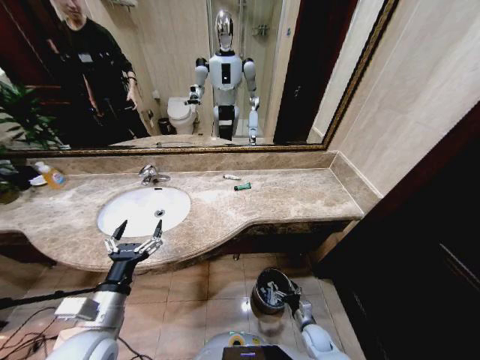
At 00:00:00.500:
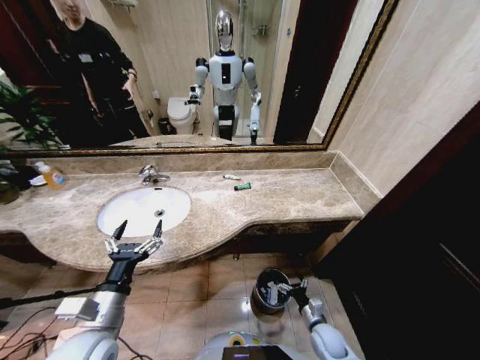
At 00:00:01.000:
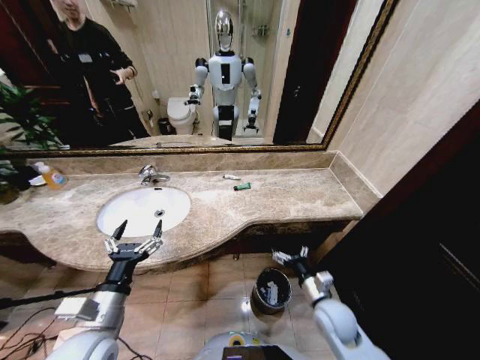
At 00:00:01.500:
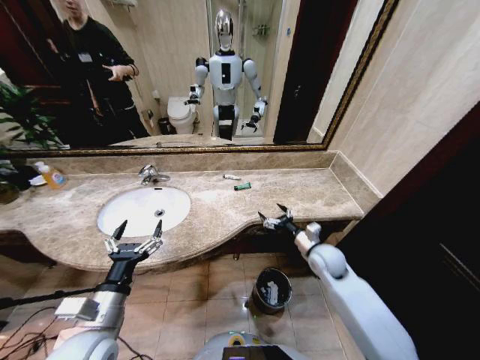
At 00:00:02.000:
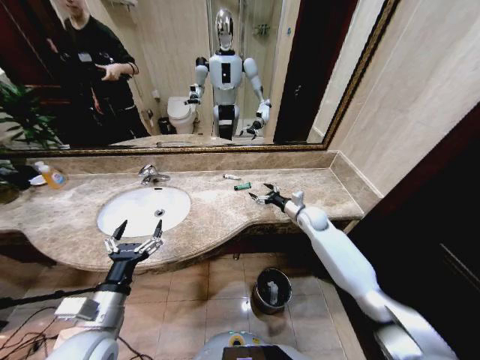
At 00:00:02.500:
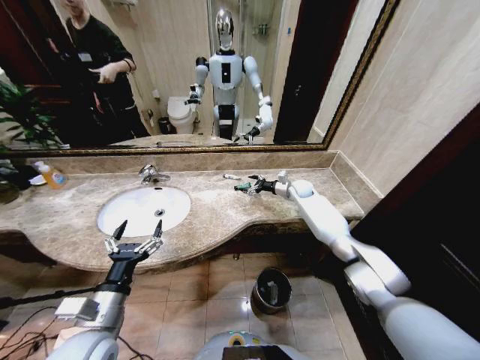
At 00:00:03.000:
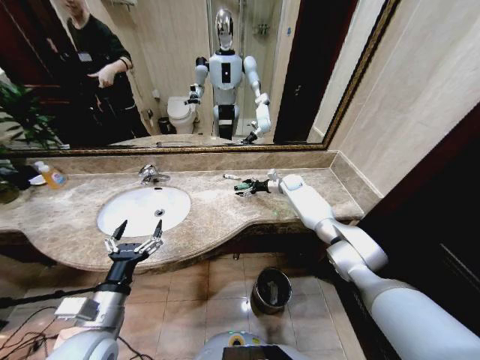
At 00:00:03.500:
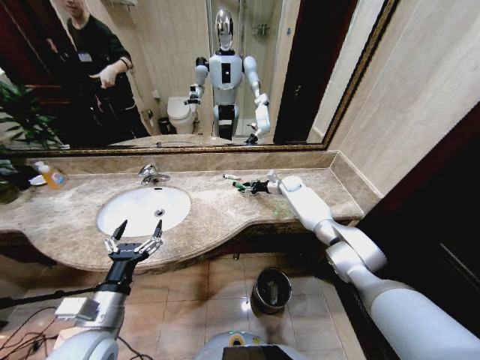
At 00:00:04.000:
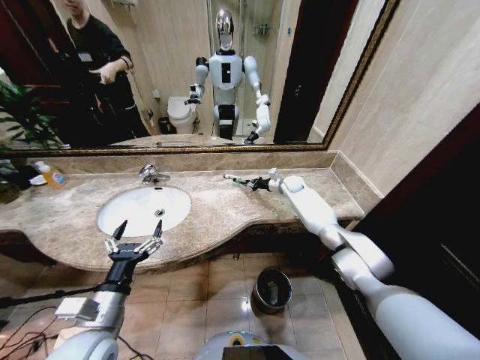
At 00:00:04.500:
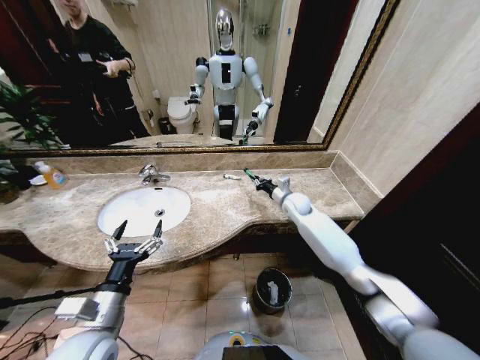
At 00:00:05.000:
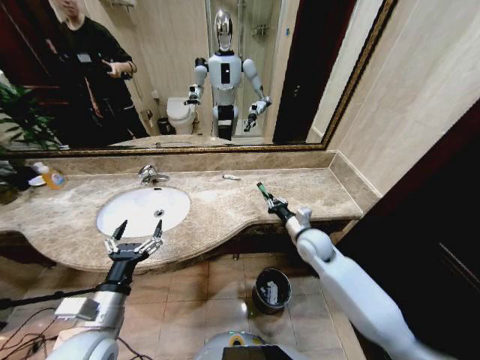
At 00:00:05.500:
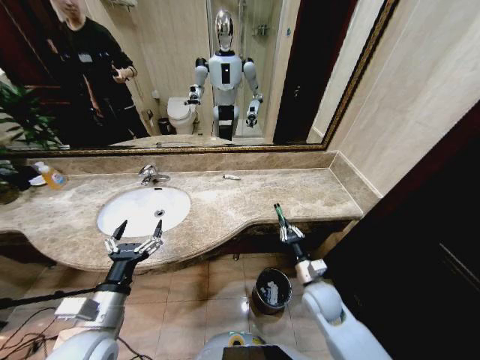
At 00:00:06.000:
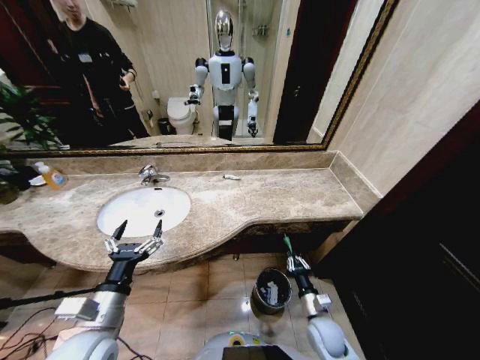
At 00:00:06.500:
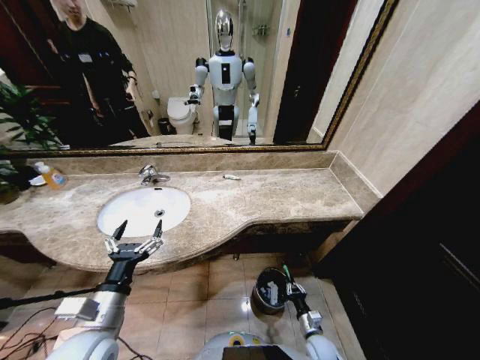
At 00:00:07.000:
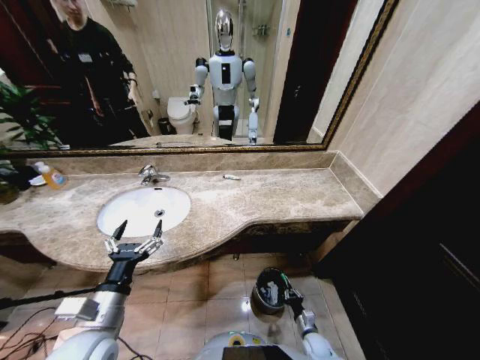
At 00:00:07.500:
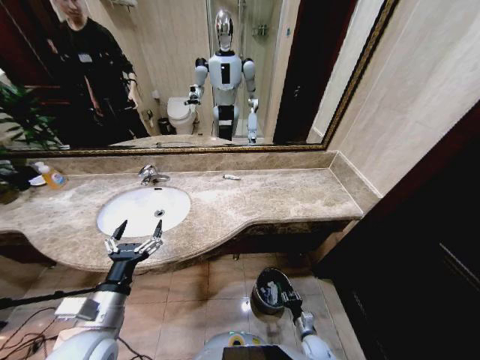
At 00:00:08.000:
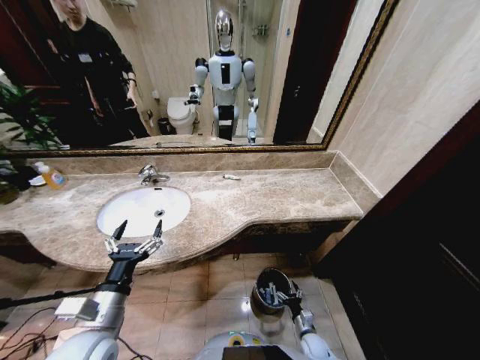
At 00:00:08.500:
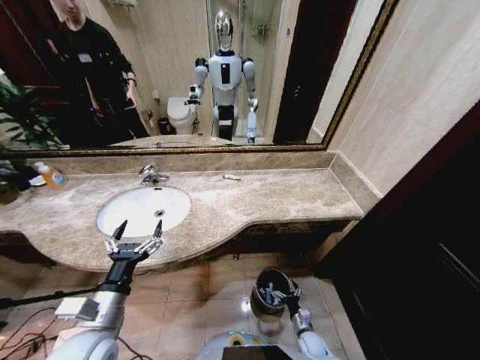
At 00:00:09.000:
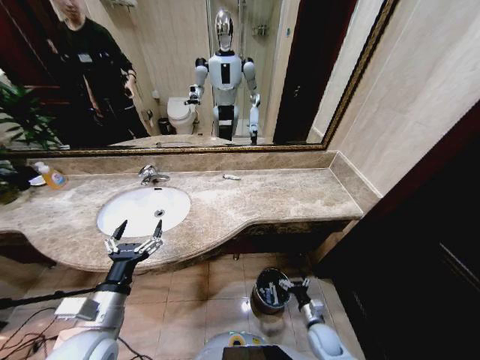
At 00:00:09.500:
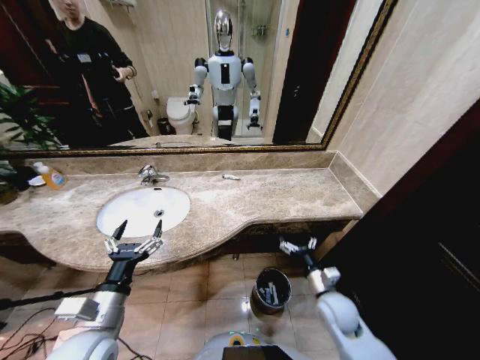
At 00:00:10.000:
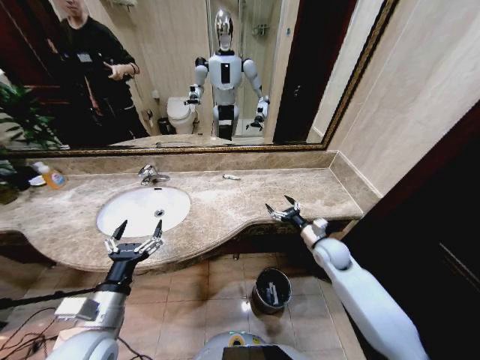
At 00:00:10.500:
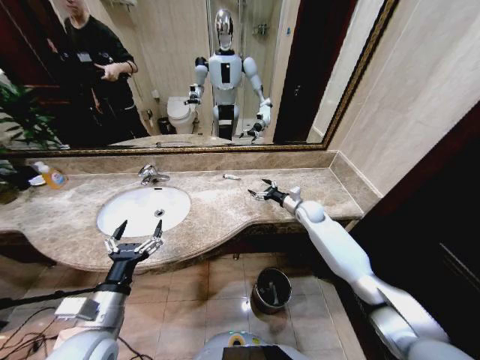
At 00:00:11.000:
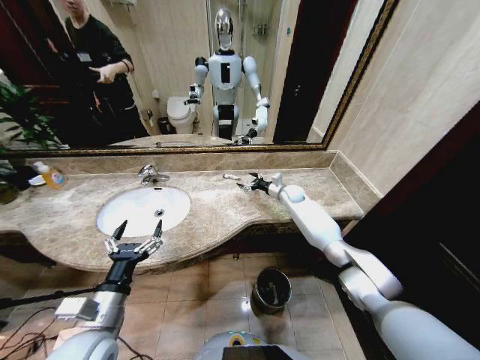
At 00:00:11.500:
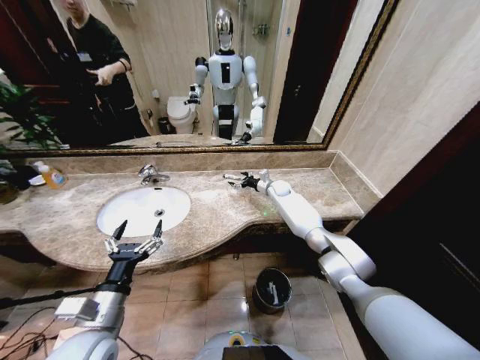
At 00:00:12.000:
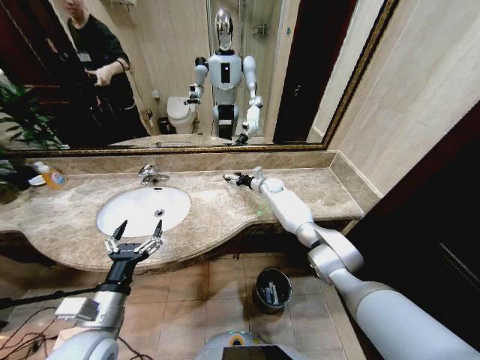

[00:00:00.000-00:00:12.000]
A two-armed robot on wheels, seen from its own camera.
Task of the whole recording: Pick up the trash from the sink and place it in the trash bin.
00:00:00.000 to 00:00:02.000: The right gripper goes some 40 cm upward and forward.
00:00:02.000 to 00:00:04.000: The right gripper moves forward, approximately 15 cm, and closes.
00:00:04.000 to 00:00:06.000: The right gripper shifts some 50 cm backward and downward.
00:00:06.000 to 00:00:08.000: The right gripper travels downward by approximately 20 cm, and opens.
00:00:08.000 to 00:00:10.000: The right gripper travels upward and forward by approximately 40 cm.
00:00:10.000 to 00:00:12.000: The right gripper travels forward and to the left by about 30 cm.

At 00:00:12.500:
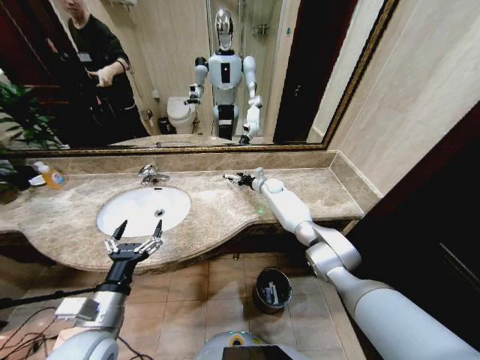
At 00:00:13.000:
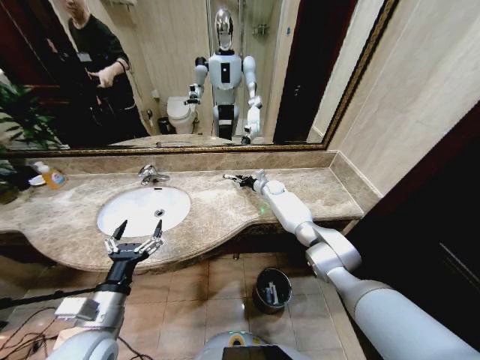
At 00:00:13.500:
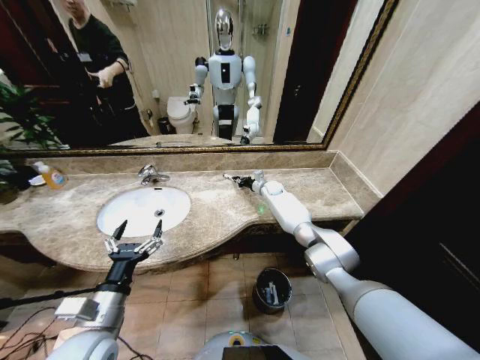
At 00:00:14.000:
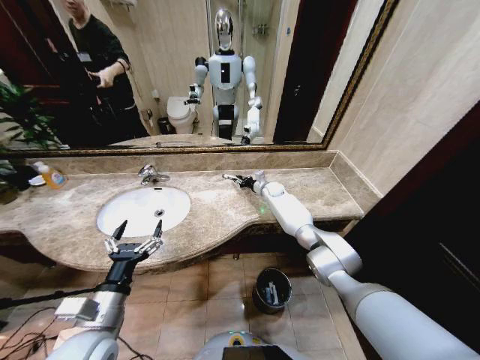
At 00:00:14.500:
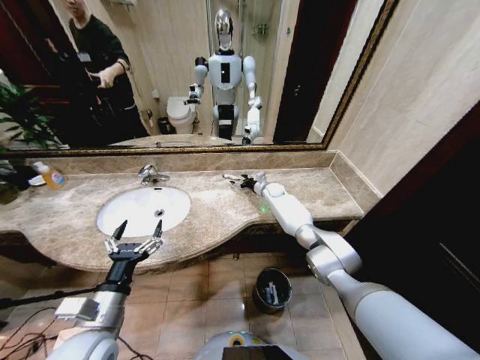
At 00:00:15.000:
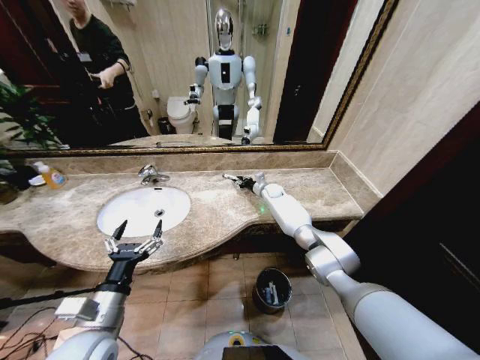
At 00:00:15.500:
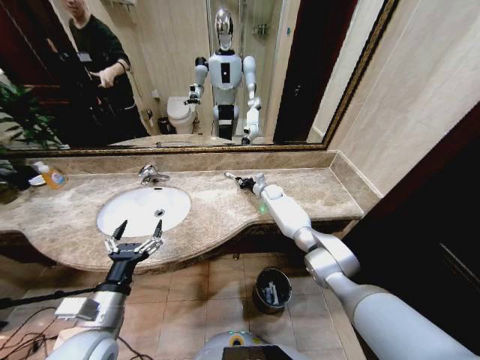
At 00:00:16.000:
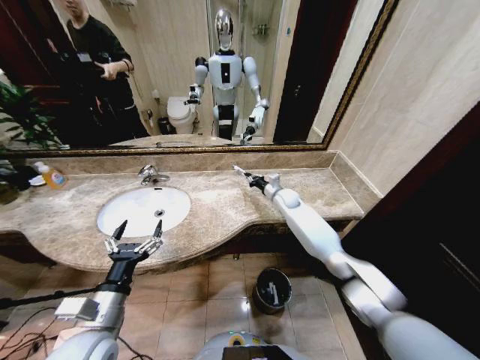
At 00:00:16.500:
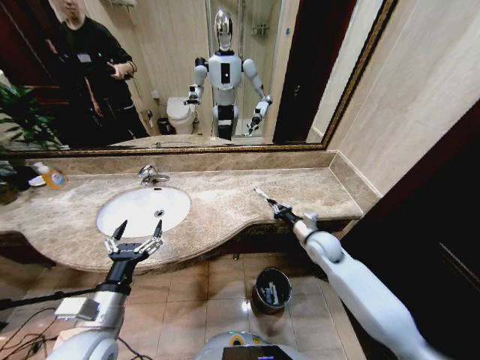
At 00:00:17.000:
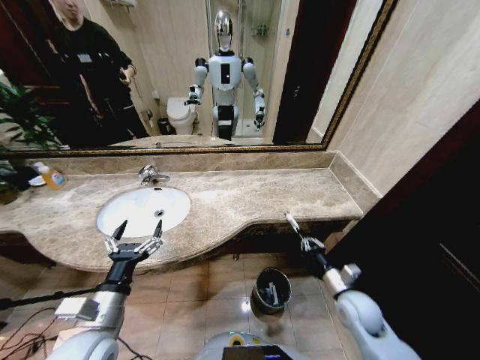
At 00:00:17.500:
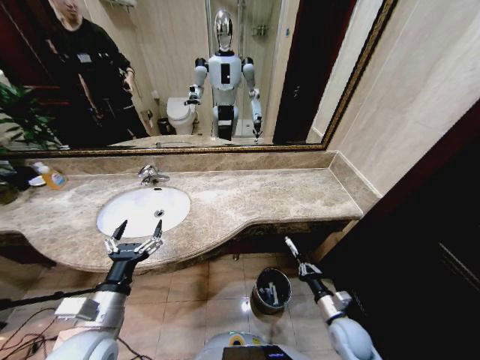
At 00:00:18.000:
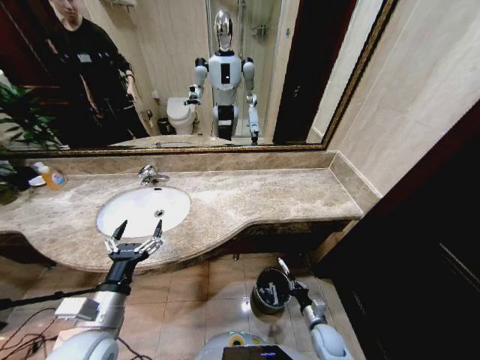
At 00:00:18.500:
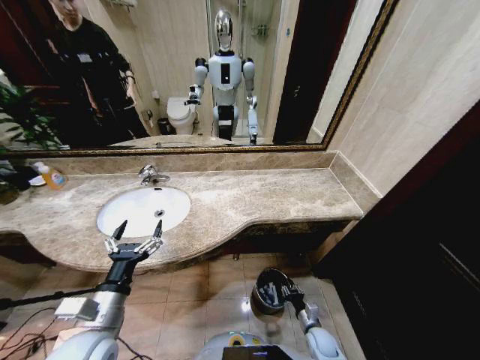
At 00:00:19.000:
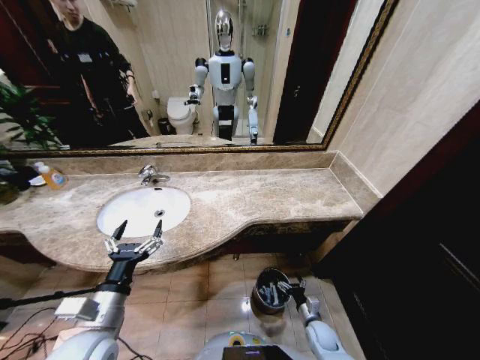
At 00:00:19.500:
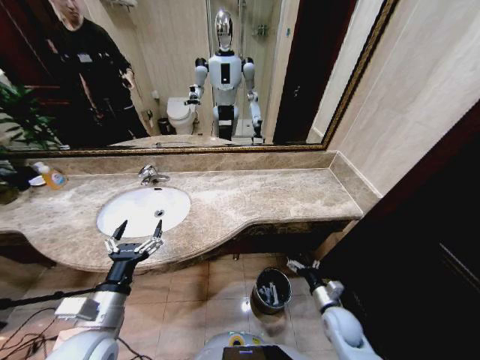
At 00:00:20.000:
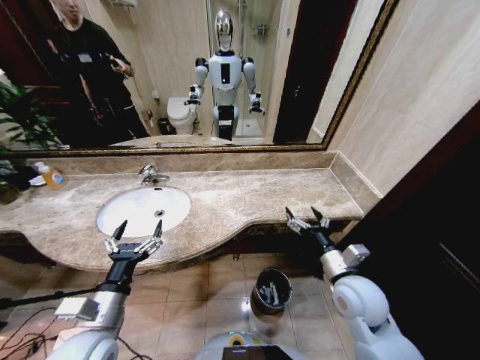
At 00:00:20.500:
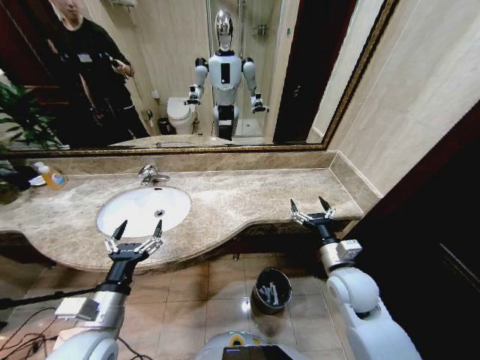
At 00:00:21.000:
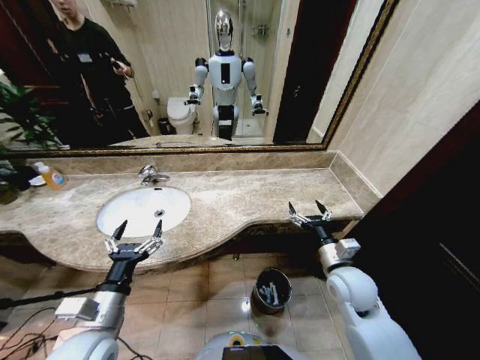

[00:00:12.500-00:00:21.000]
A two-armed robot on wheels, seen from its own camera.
Task of the whole recording: Pick up the trash from the sink and place it in the trash bin.
00:00:12.500 to 00:00:14.500: The right gripper closes, then reopens.
00:00:14.500 to 00:00:16.500: The right gripper moves backward, approximately 30 cm, and closes its fingers.
00:00:16.500 to 00:00:19.000: The right gripper is displaced downward and backward by roughly 35 cm, and opens up.
00:00:19.000 to 00:00:21.000: The right gripper travels upward by roughly 30 cm.
